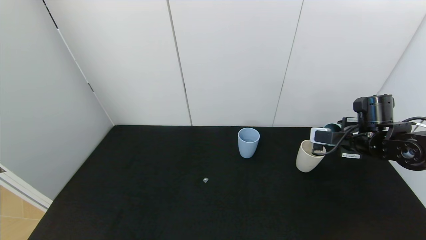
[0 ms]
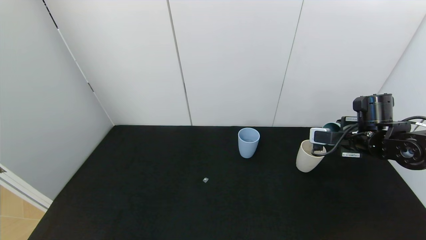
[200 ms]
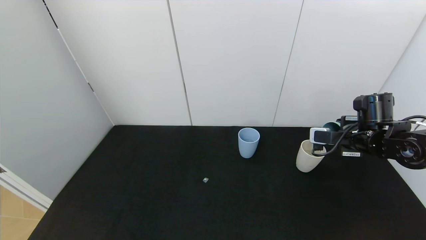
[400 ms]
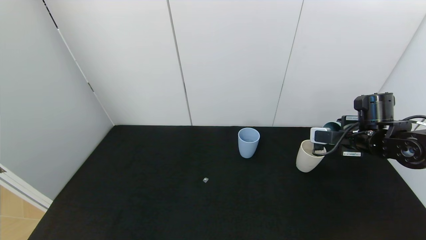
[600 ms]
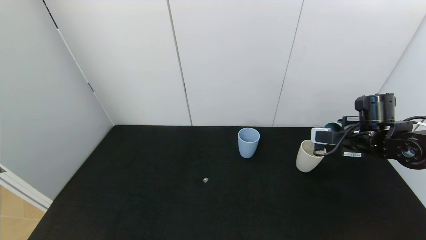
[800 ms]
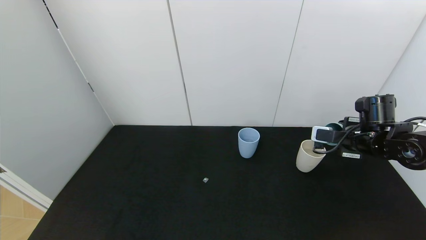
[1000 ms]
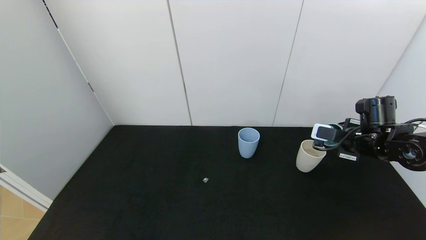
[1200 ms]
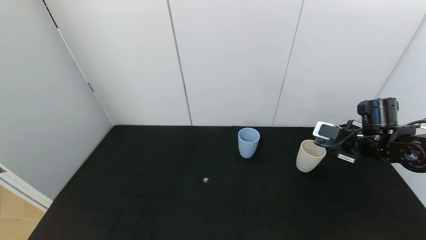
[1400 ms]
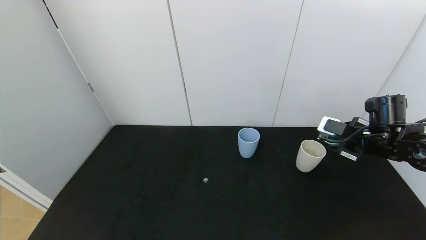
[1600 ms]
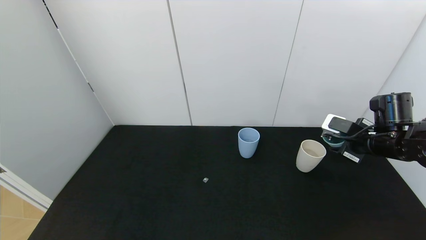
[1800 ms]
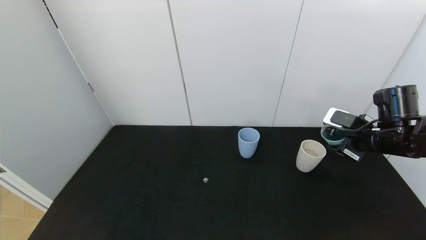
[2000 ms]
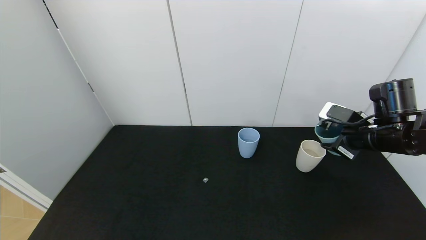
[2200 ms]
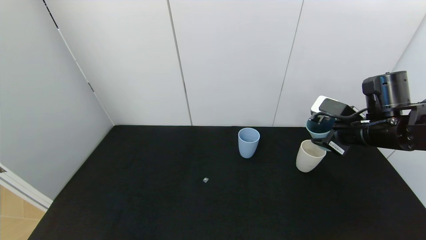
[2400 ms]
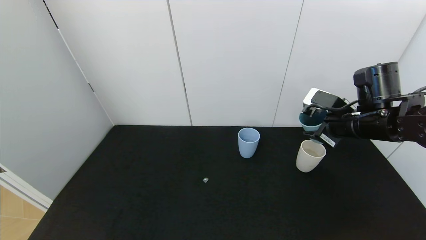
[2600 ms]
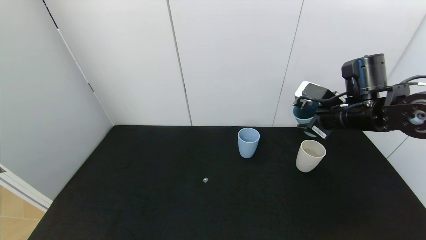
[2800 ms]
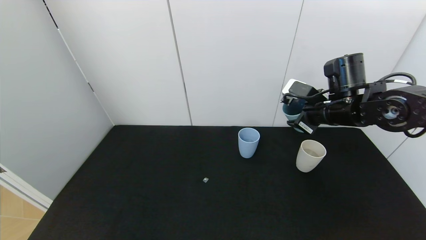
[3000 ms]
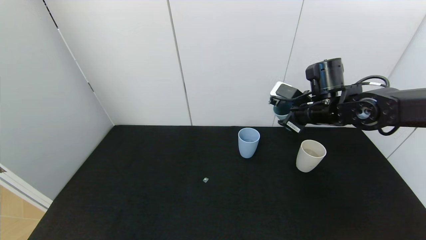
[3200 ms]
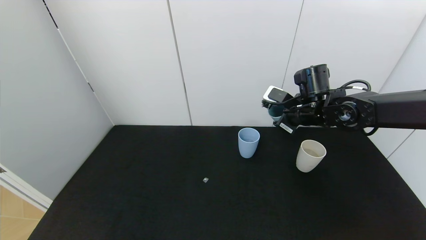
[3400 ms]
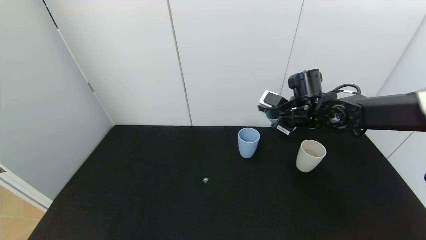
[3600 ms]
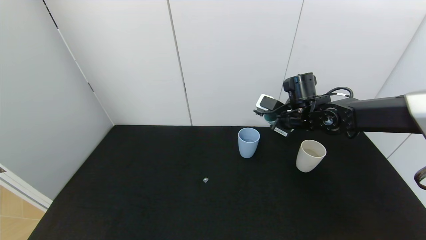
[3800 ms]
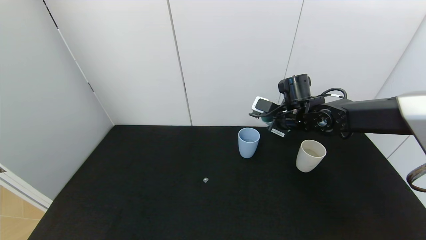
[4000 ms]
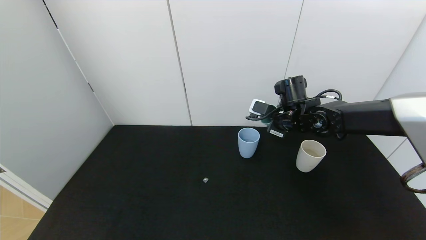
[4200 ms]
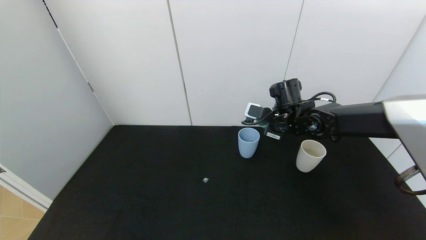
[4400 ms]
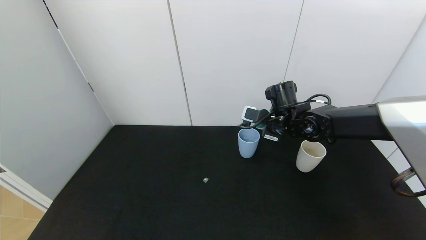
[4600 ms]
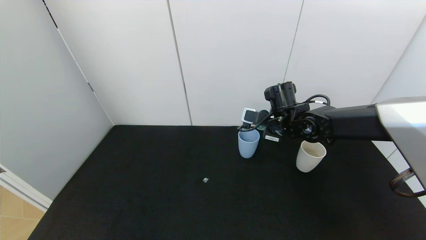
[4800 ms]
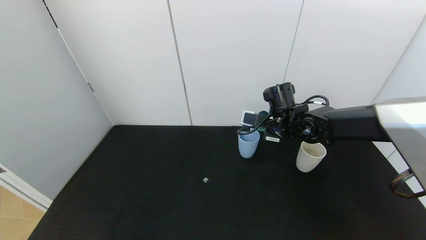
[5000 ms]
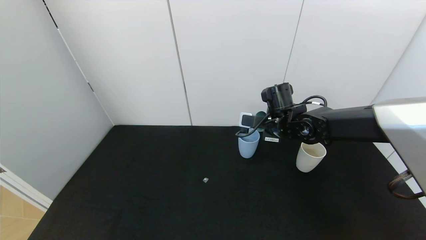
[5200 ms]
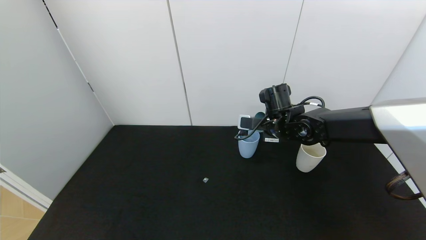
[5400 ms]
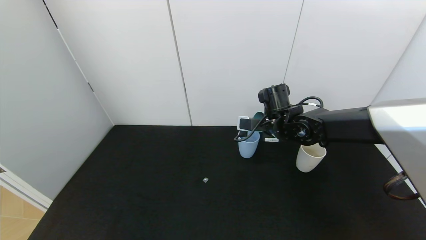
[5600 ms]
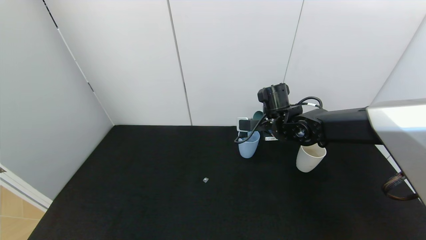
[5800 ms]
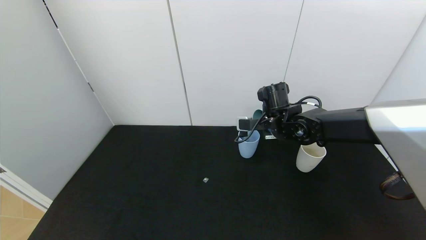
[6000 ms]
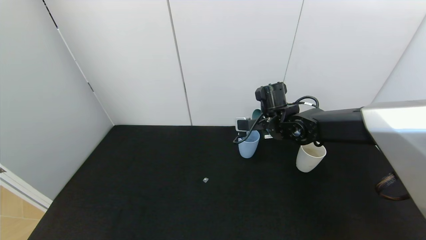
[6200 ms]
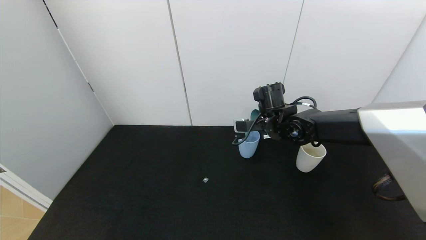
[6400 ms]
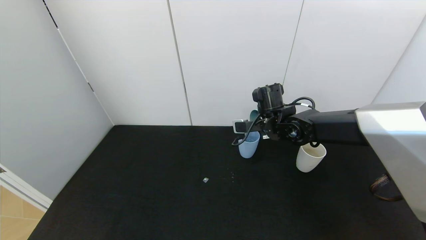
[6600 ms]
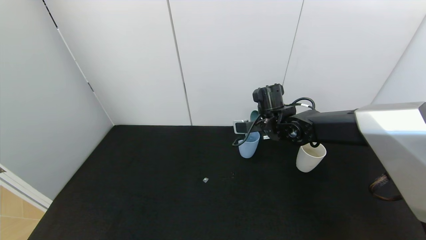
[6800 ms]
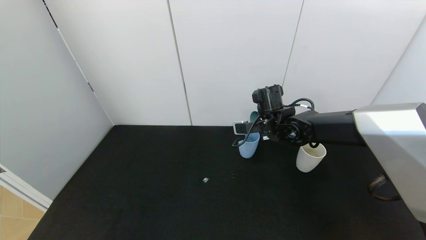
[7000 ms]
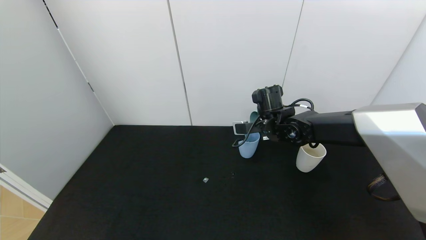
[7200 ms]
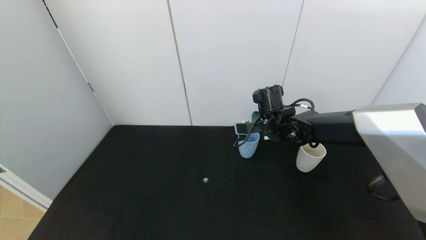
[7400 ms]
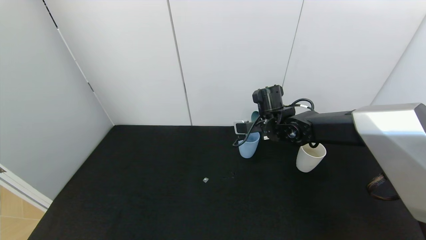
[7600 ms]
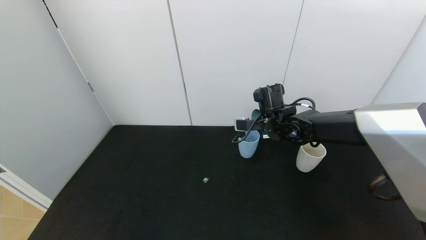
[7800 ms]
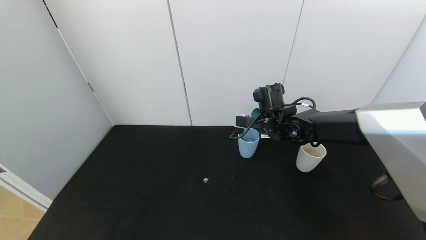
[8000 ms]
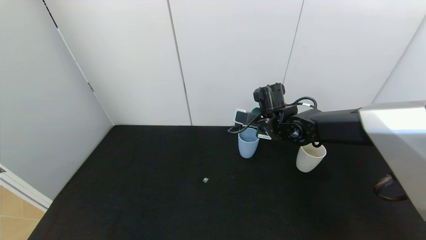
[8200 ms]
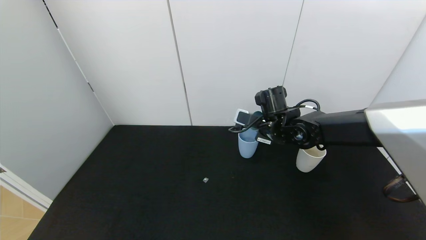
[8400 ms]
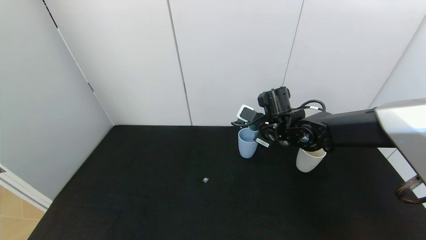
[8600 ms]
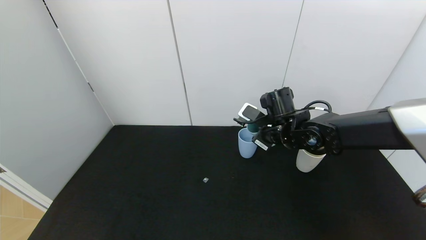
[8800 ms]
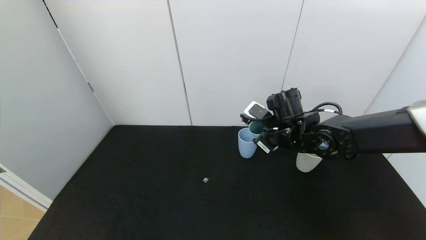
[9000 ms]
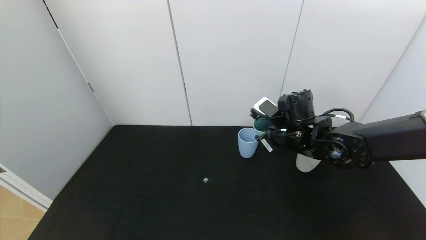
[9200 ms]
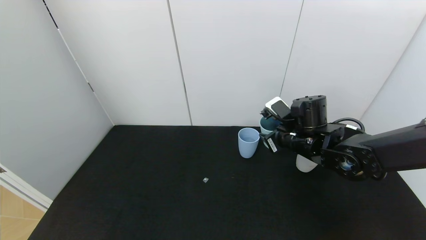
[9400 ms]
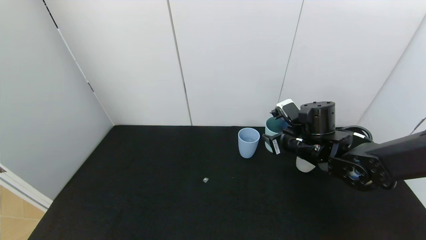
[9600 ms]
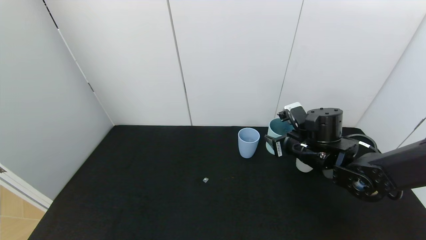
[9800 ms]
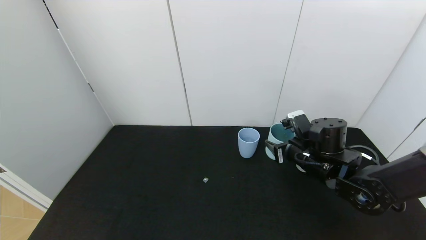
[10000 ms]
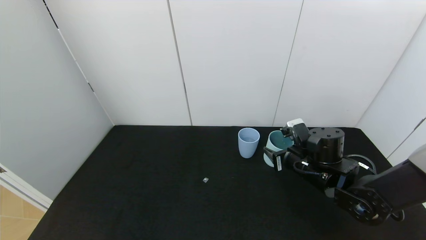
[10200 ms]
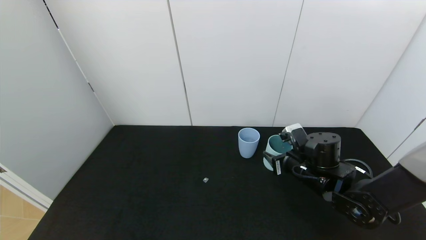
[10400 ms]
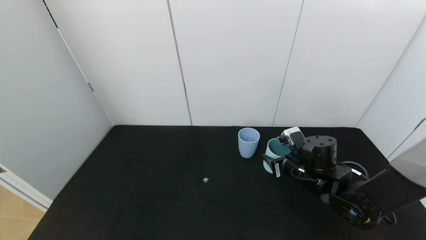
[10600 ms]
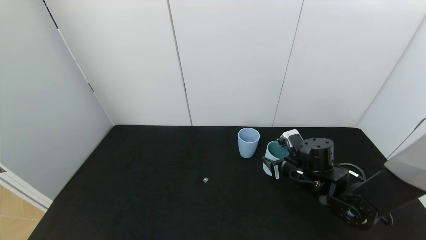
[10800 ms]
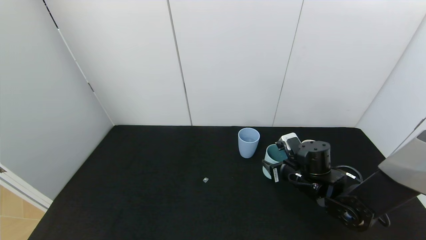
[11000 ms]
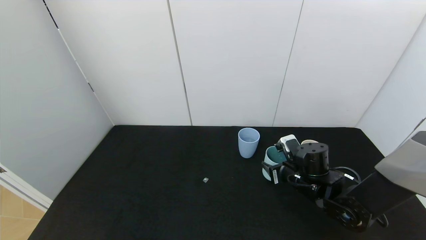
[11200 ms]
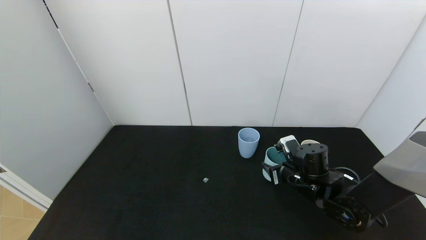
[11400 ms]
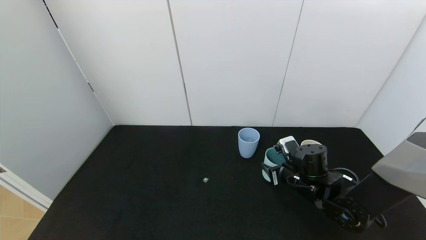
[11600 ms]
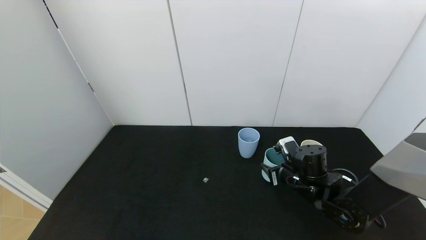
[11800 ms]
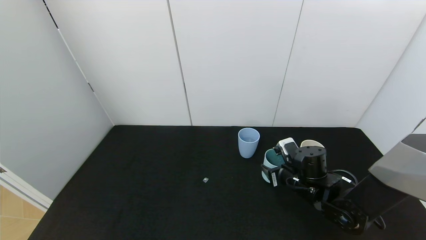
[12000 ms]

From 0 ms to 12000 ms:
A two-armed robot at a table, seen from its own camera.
Task of the whole recording: use the gripper to pour the water into the other two cups on black table.
Step, from 1200 ms to 8000 ms: Pour water from green cup to blue cup with the right gripper.
From 1600 ms to 3000 ms: The right gripper travels to the left and upward by approximately 10 cm.
From 3000 ms to 4400 ms: The right gripper heads to the left, forward and downward, covering approximately 10 cm.
From 6000 ms to 7600 ms: There are only small adjustments of the grippers.
From 7600 ms to 9000 ms: The right gripper travels backward by about 5 cm.
From 9000 ms to 10400 ms: The right gripper moves downward and to the right, about 10 cm.
From 10400 ms to 12000 ms: The grippers make only small movements.

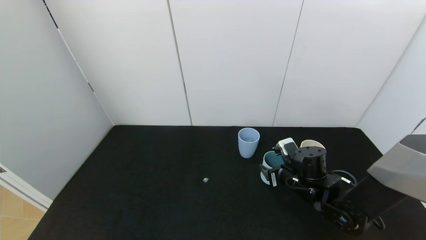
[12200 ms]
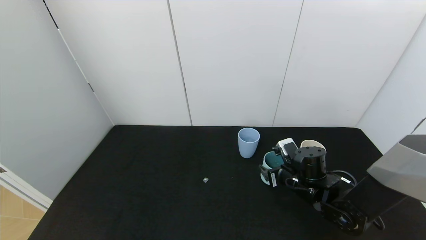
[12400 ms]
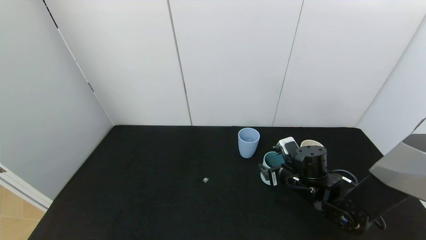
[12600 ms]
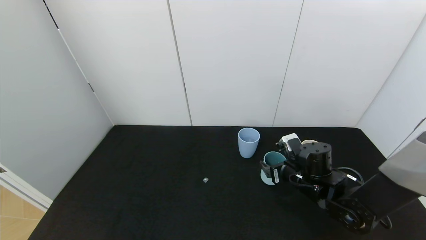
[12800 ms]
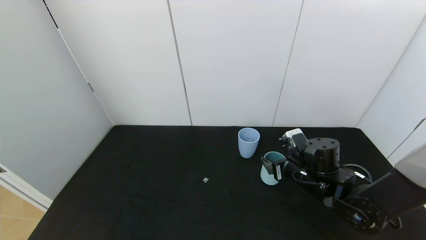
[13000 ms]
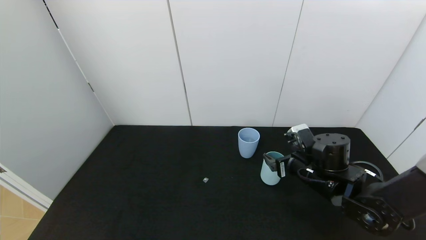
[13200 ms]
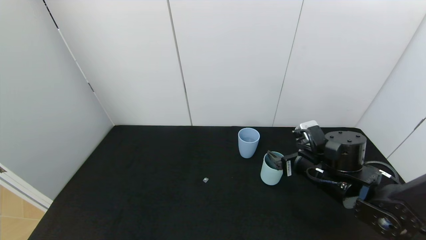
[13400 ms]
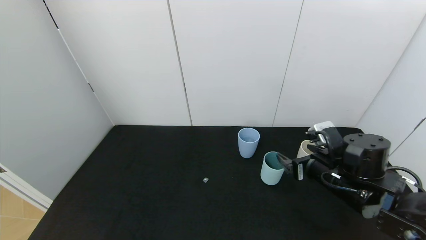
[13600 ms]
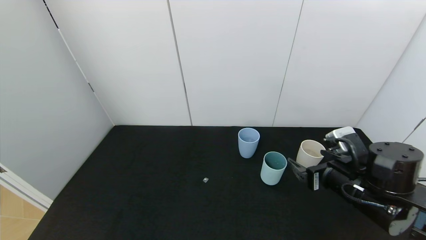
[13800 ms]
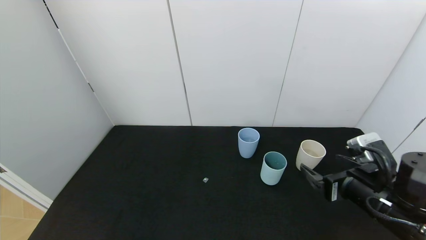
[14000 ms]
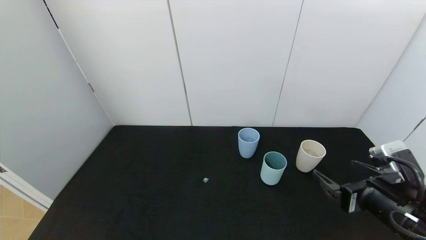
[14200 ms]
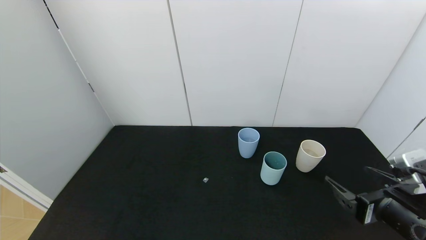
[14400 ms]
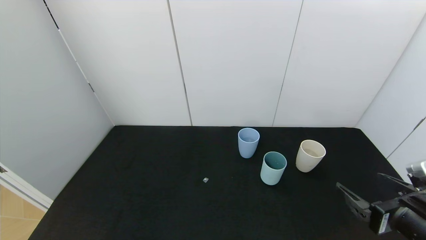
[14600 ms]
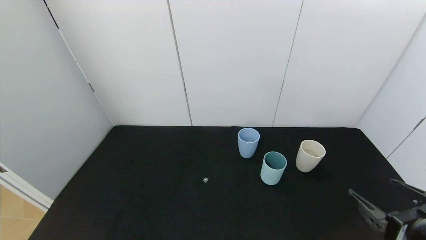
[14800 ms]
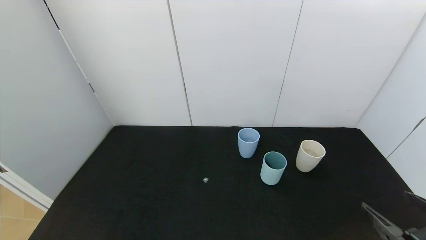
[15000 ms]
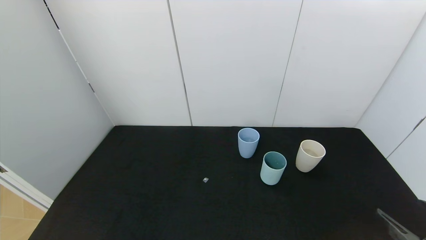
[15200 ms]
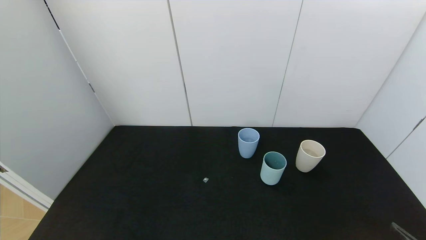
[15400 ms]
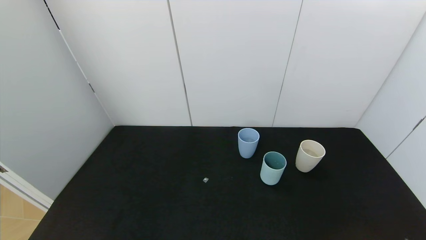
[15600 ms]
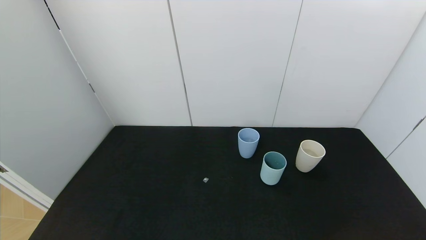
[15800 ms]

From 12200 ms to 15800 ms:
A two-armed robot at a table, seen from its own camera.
Task of the whole recording: use the gripper to pour the water into the other two cups on black table.
From 12200 ms to 14000 ms: The right gripper goes some 15 cm backward, upward and to the right, and opens its fingers.
From 14000 ms to 15800 ms: The right gripper moves backward and to the right, some 20 cm.

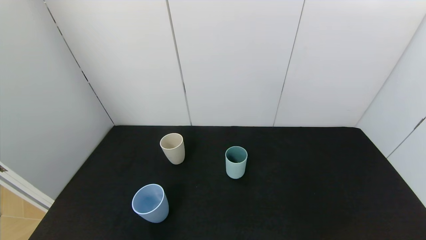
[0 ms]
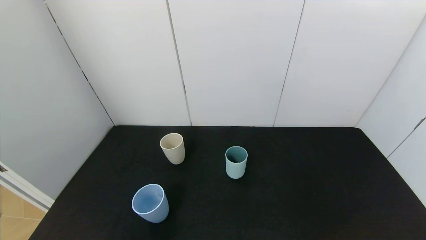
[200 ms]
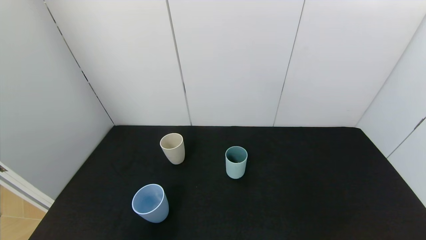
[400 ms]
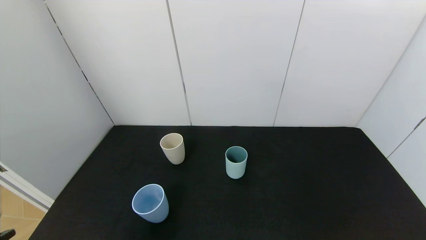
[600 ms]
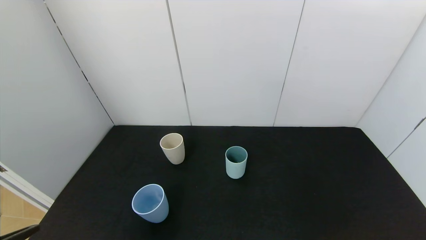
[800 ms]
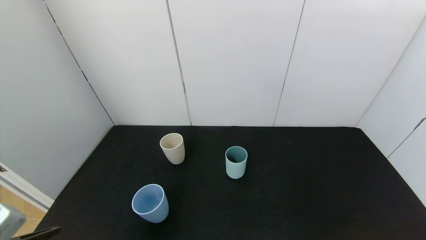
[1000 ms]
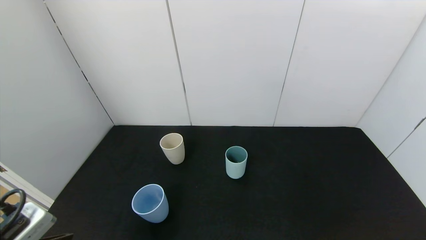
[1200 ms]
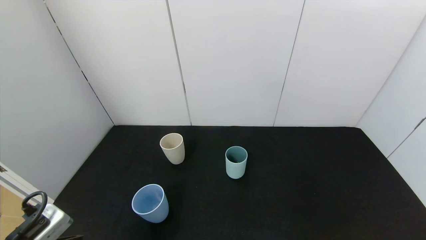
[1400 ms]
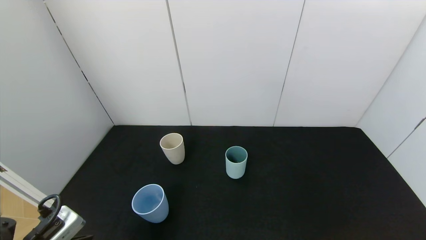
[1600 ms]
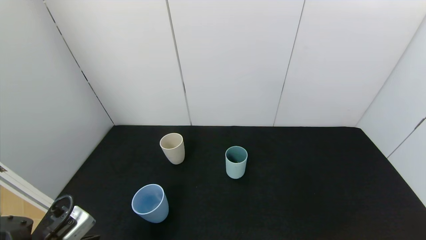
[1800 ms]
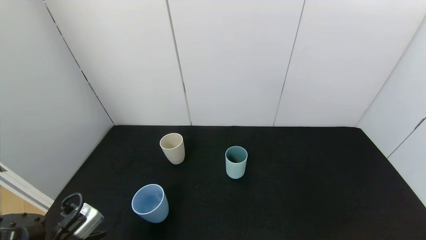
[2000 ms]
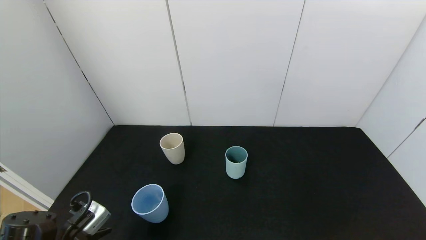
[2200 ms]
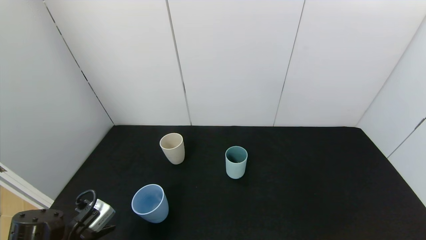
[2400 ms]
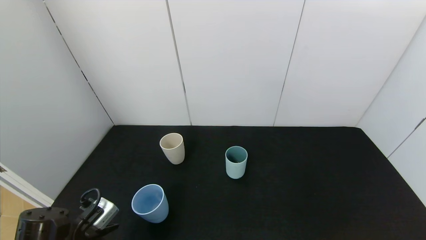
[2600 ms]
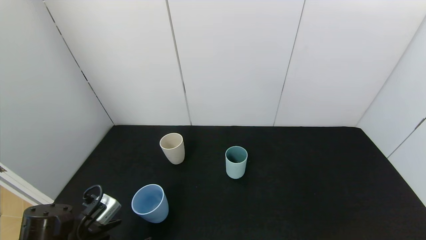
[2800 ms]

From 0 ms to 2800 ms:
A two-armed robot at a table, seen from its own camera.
Task of the whole recording: use the gripper to pour the water into the other two cups on black table.
From 0 ms to 1400 ms: The left gripper is displaced forward by roughly 15 cm.
From 1400 ms to 2800 ms: The left gripper is displaced downward and forward by roughly 10 cm.
